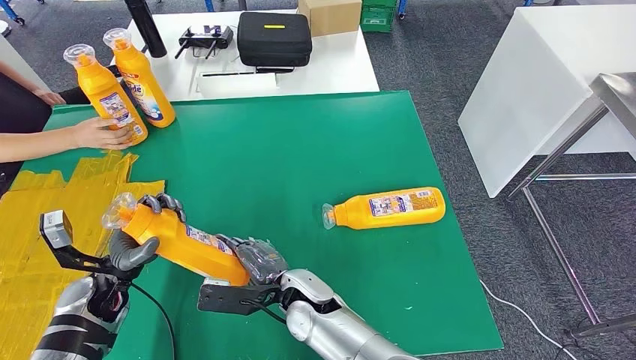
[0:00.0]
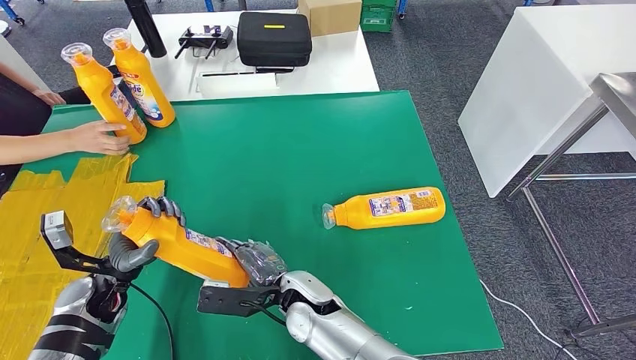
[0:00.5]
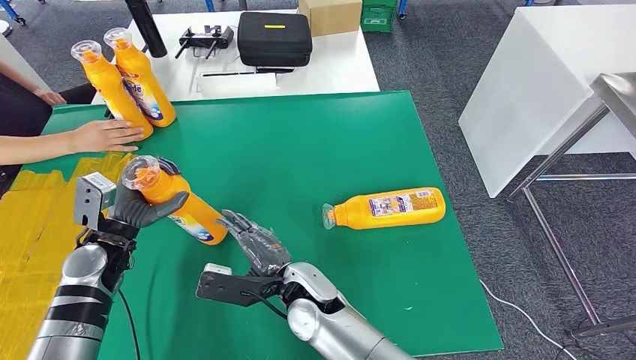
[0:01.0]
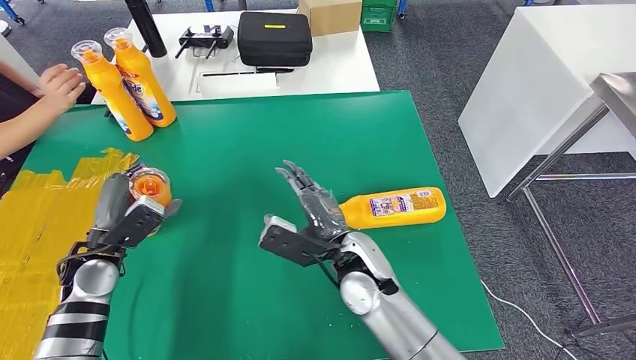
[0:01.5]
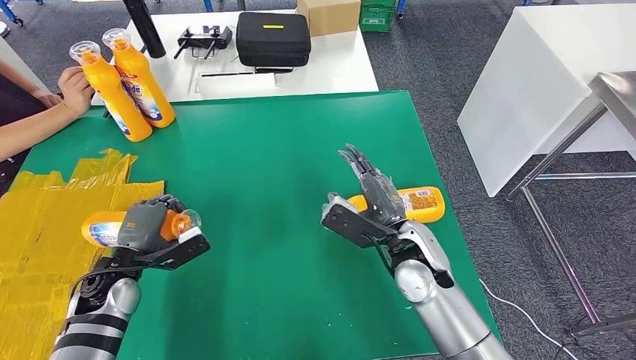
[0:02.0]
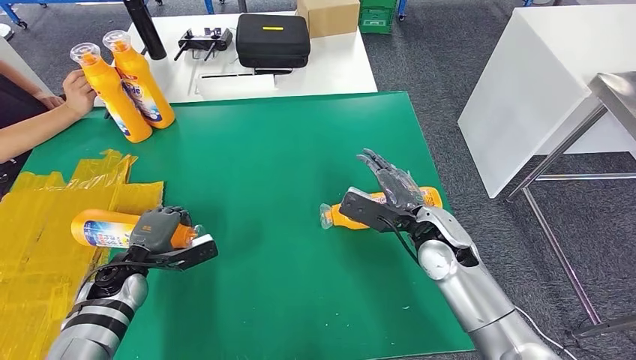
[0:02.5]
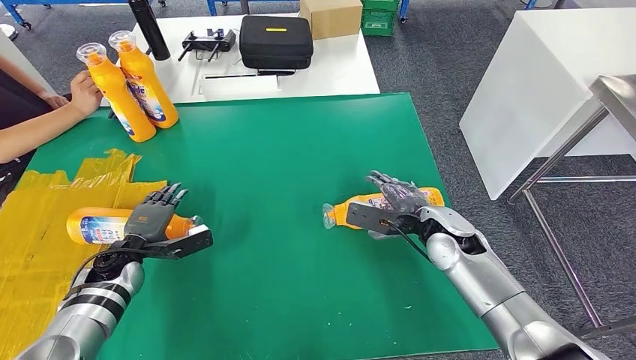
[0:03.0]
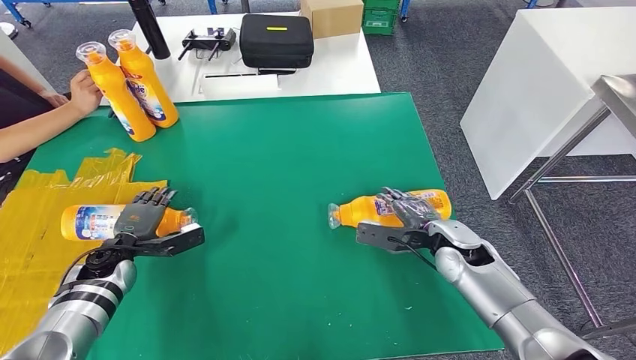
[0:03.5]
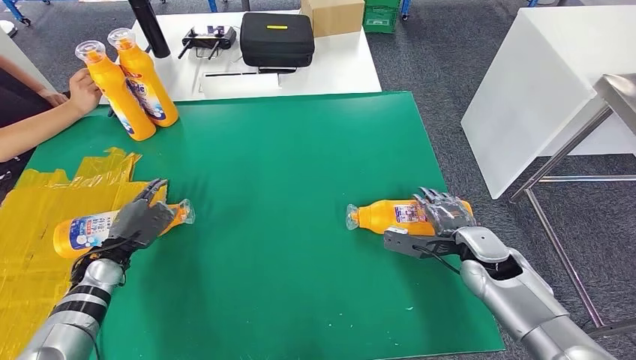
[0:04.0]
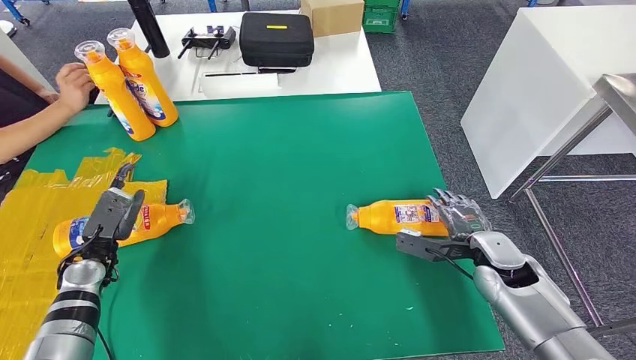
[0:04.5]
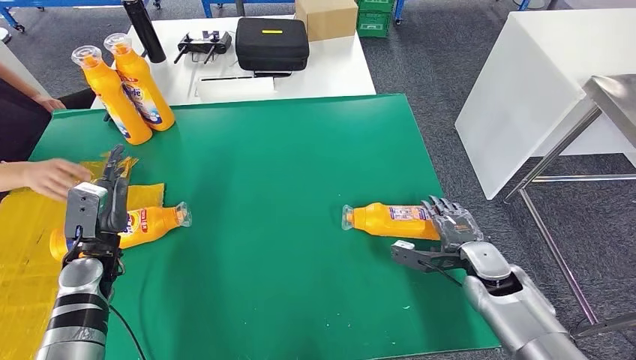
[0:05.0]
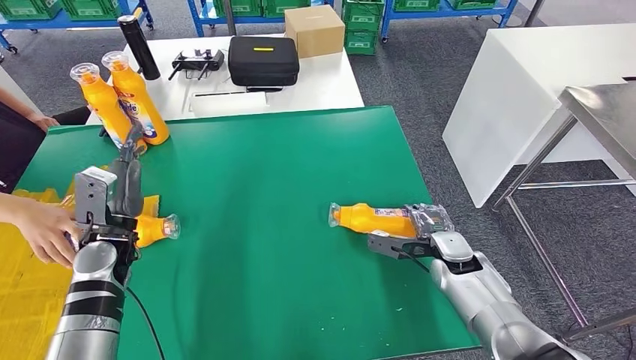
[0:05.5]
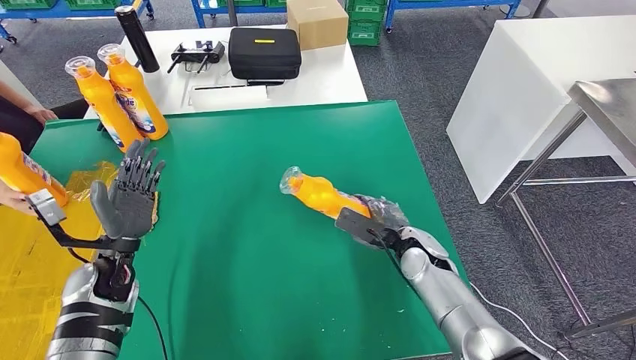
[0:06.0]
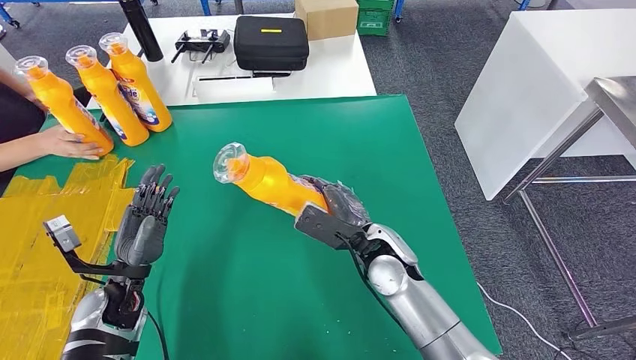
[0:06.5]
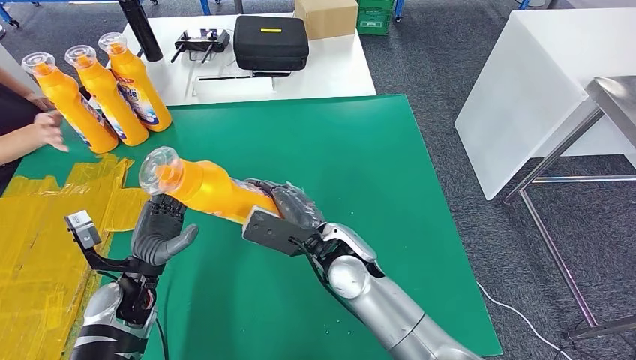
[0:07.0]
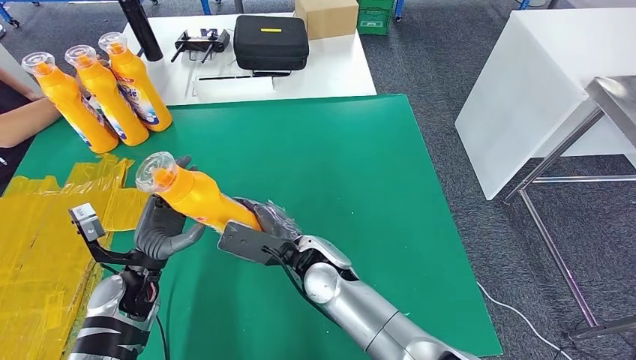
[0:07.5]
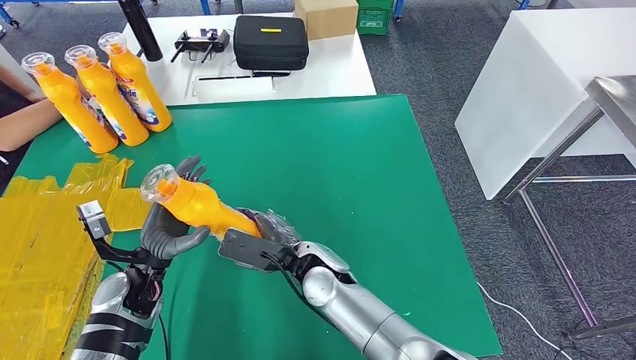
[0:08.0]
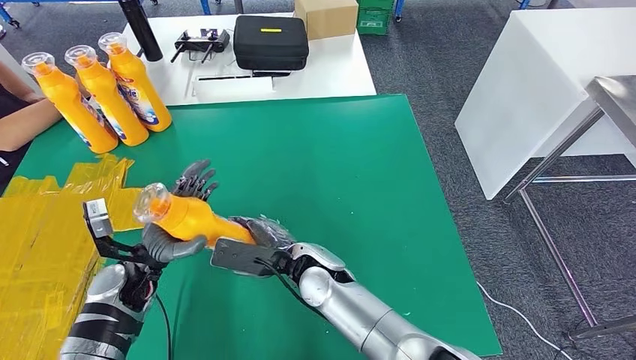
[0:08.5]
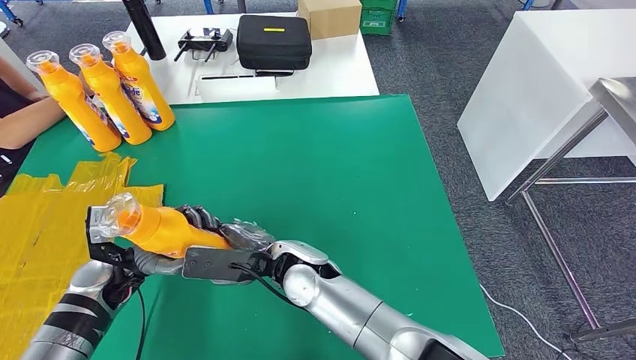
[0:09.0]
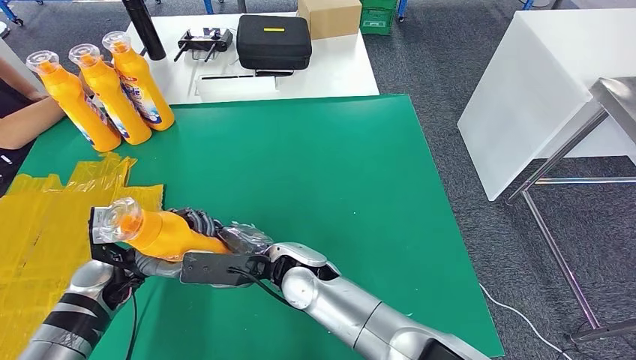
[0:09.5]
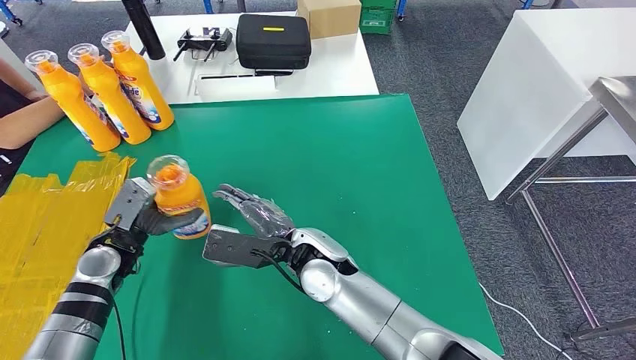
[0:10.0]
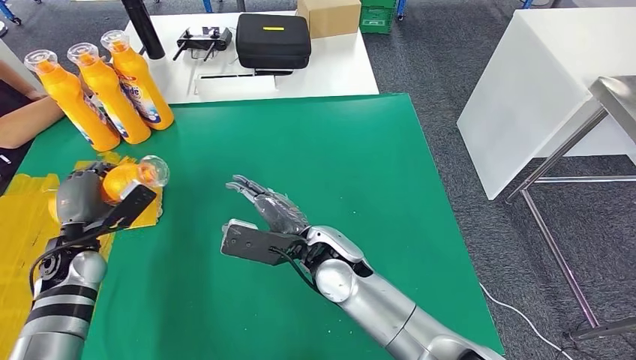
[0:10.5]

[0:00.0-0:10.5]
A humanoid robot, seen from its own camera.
Step, 0:00.0 to 0:02.5: Flip the fast-moving consumer goods bottle to the front side.
Step, 0:03.0 to 0:07.0: Pick up the fast-moving consumer goods bottle from the table.
Step, 0:07.5 to 0:10.5: Flip the fast-moving consumer goods bottle to the front side.
0:06.5 to 0:08.5: The right hand heads to the left, covering approximately 10 cm.
